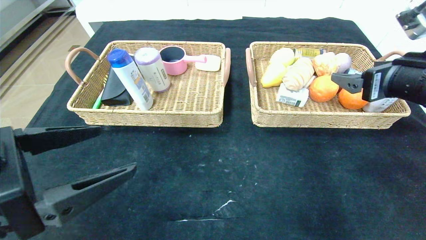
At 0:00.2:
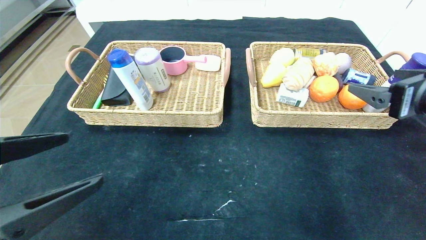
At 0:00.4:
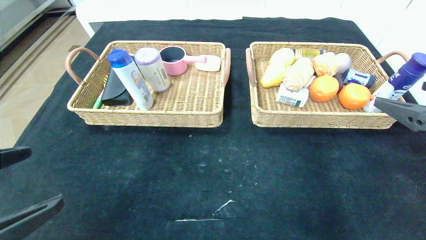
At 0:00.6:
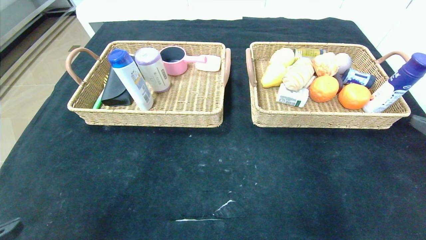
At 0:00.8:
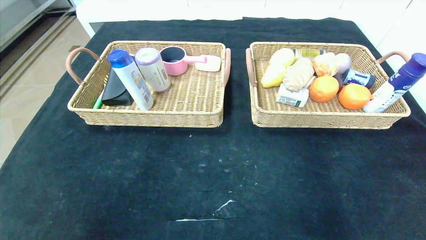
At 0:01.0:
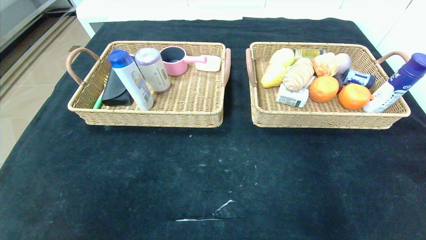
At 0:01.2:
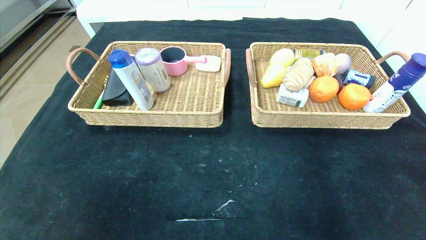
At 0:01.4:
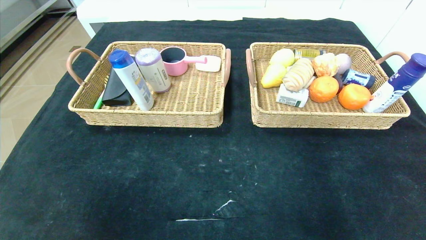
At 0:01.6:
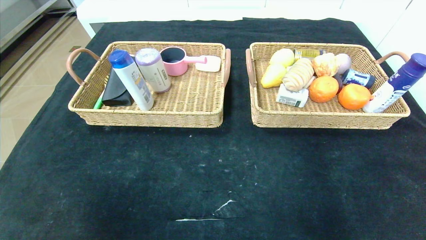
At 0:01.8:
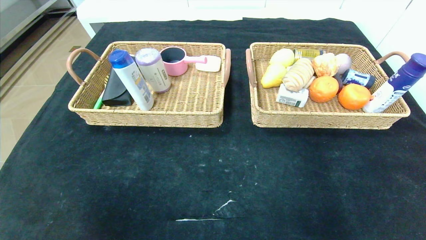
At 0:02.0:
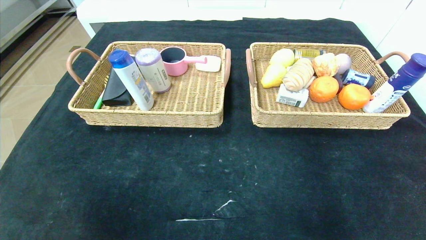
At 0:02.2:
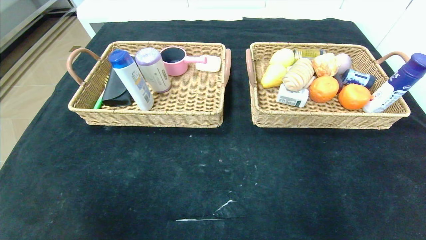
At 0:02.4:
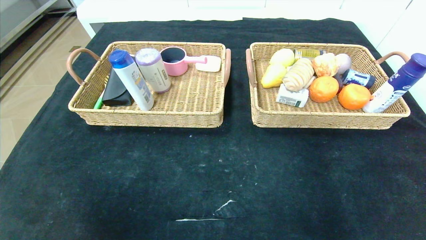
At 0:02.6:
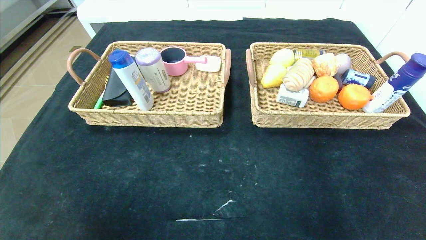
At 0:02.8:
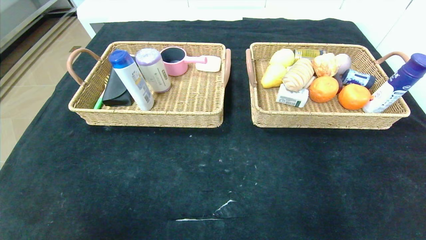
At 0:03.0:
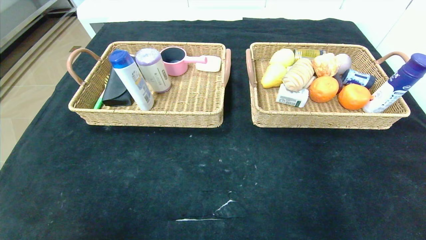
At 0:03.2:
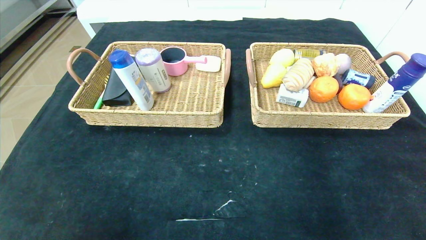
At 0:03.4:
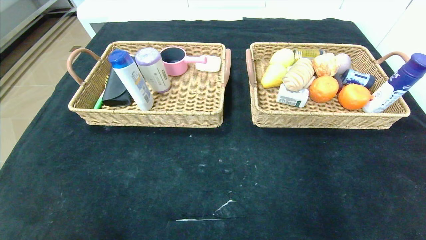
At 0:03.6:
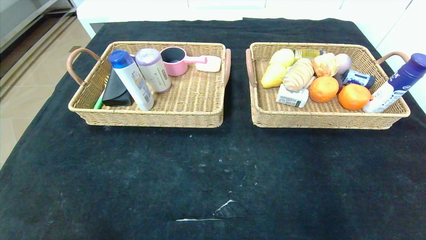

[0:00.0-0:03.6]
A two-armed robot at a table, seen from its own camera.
0:00.0 to 0:01.8: The right gripper moves backward, roughly 30 cm. The left gripper heads backward and to the left, covering about 20 cm.
